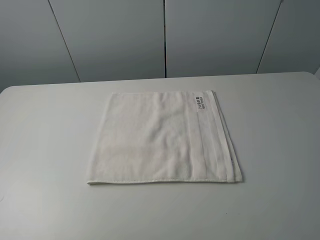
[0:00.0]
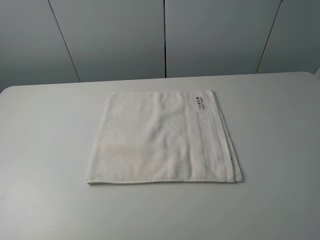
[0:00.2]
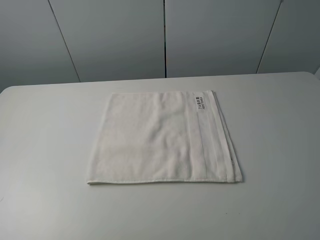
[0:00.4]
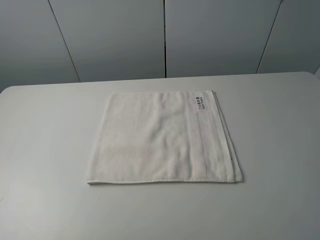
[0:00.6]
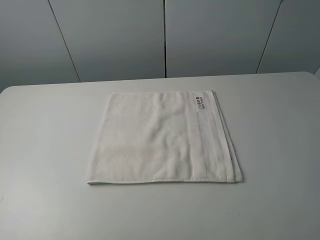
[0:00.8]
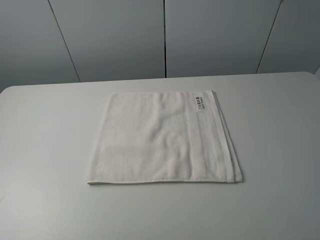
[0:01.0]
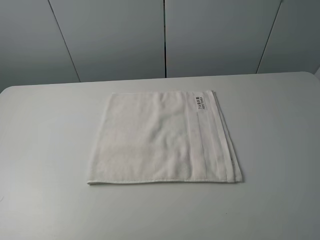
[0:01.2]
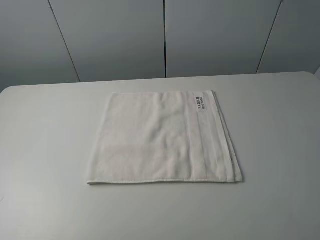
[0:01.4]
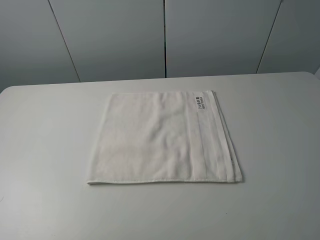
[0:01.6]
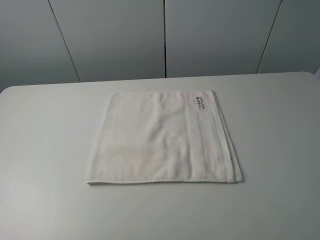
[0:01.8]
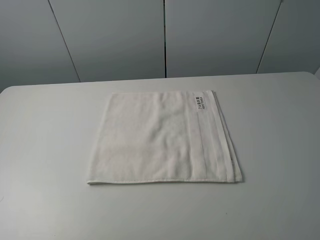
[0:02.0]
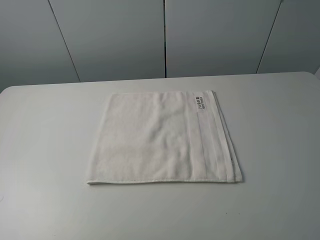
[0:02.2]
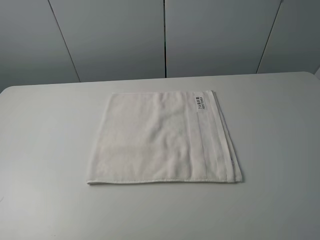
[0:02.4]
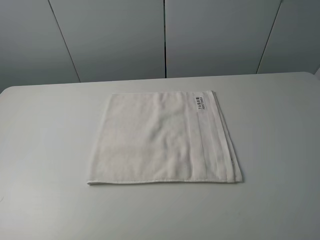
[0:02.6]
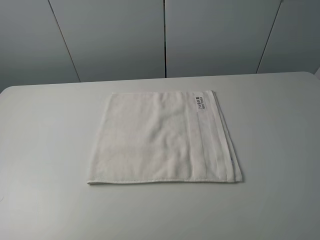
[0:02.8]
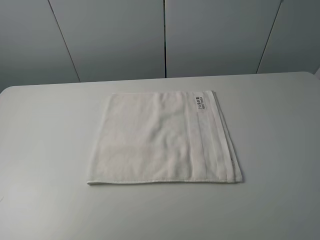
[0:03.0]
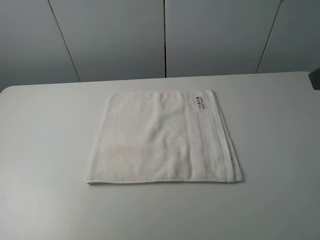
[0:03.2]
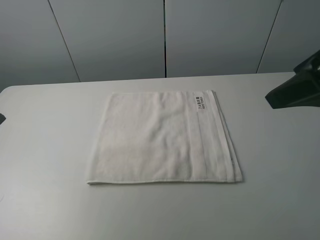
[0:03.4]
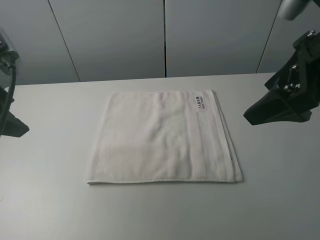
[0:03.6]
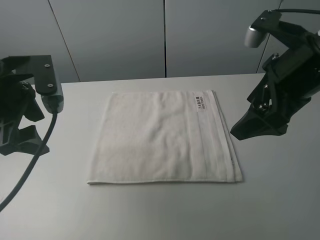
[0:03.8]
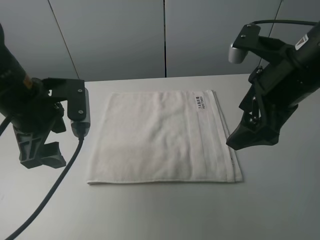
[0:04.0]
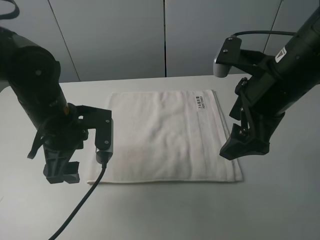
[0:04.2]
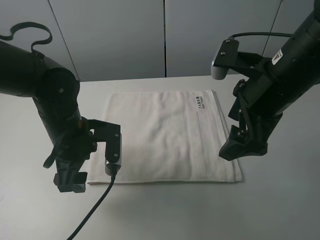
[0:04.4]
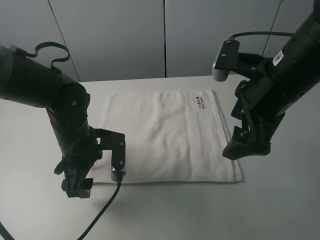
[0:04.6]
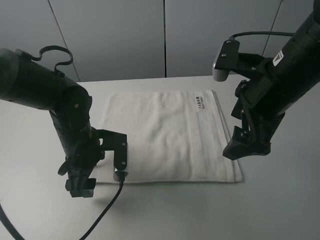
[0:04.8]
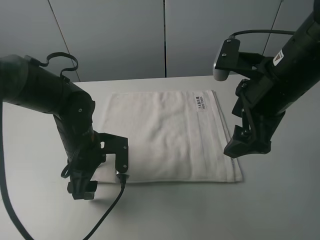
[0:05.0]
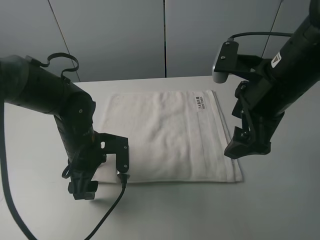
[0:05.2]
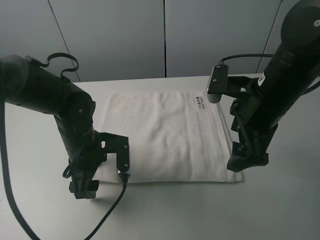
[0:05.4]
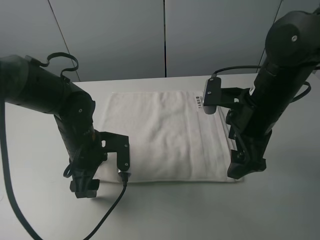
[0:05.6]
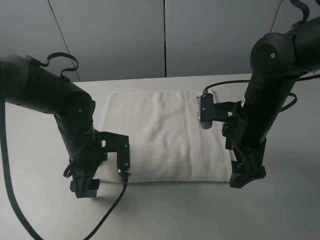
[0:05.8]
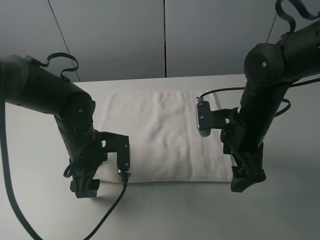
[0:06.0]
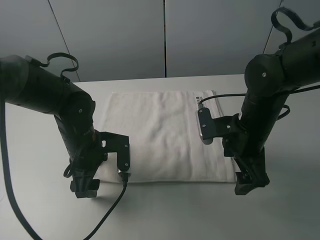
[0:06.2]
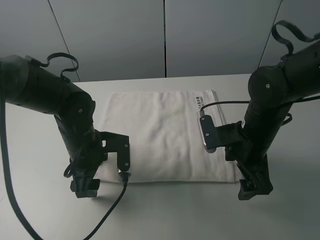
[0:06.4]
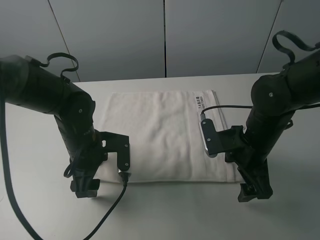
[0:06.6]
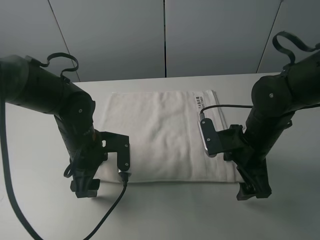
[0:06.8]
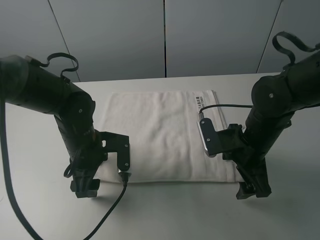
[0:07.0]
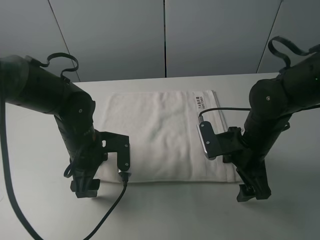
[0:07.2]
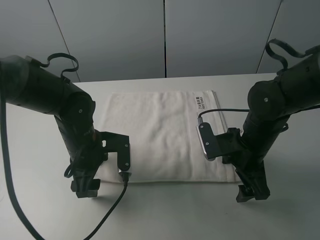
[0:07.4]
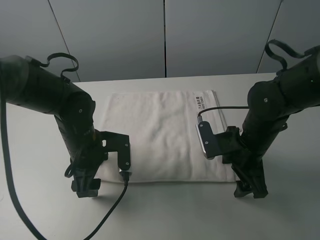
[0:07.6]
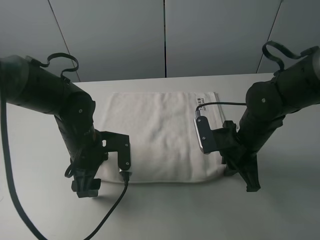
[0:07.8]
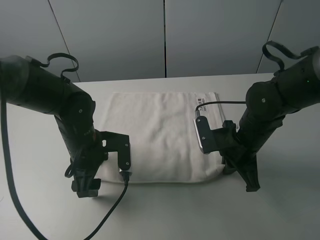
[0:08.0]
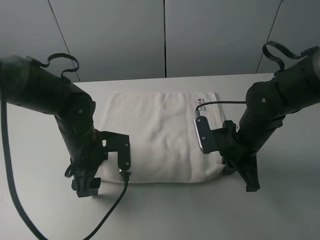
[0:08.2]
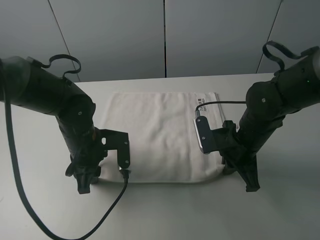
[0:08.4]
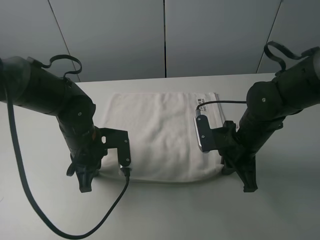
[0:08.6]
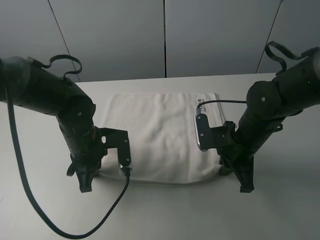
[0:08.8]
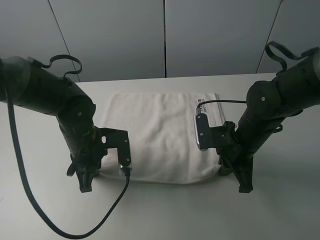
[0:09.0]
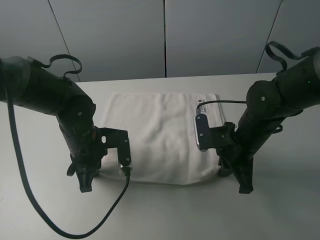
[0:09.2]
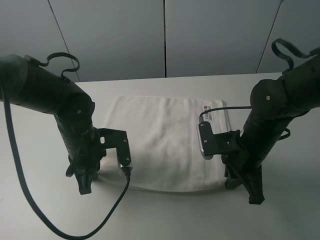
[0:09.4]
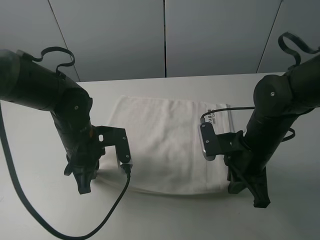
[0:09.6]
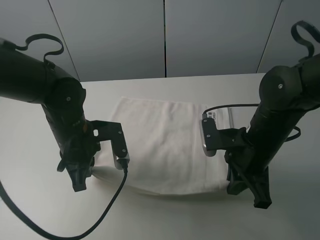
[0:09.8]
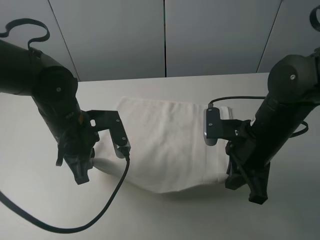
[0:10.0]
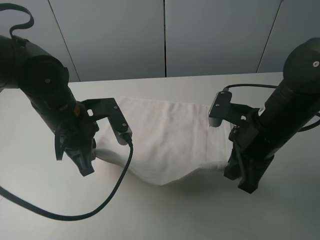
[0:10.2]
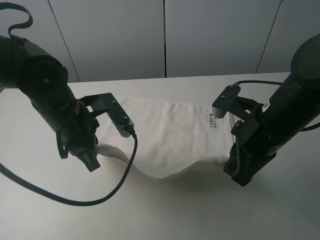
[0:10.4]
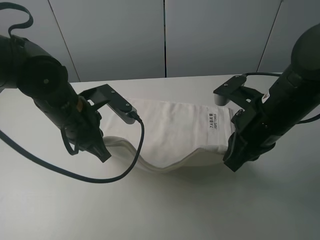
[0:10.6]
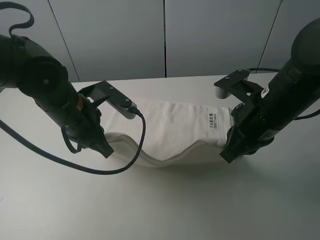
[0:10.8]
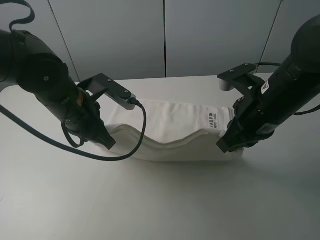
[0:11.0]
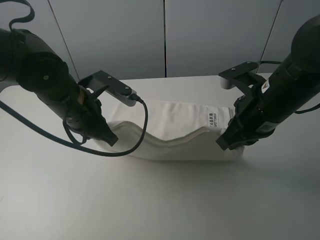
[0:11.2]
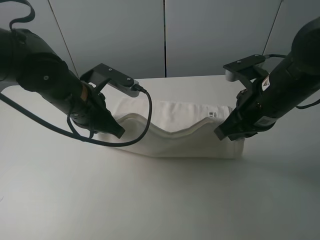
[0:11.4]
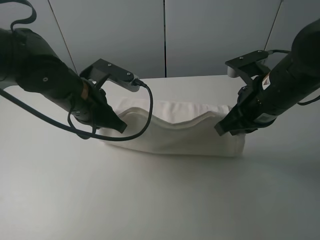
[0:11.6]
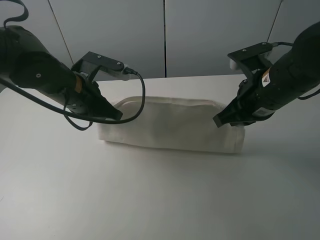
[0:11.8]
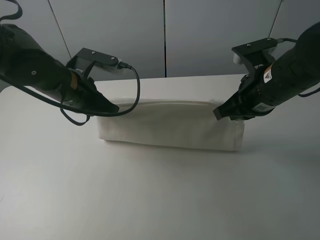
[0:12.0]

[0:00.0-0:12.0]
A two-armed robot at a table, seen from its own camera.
Task of the whole recording: fold the towels on the table.
Step, 0:00.0 to 0:07.8: Grasp the white towel with the right gripper.
Step, 0:08.0 to 0:08.4: Grasp the white towel with the left gripper.
0:00.0 to 0:01.6: Both grippers stay put.
0:03.0 to 0:04.4: The right gripper goes about 20 cm to the left, downward and forward, while the left gripper shifts some 30 cm downward, to the right and forward.
0:04.4 to 0:06.0: The right gripper travels downward by about 10 cm.
0:06.0 to 0:07.6: The right gripper ends up about 5 cm from where it was.
0:07.6 to 0:09.0: The right gripper closes its fingers. Meanwhile the left gripper closes up.
0:09.0 to 0:10.4: Both grippers travel together upward, some 10 cm.
0:10.4 to 0:12.0: The two grippers go roughly 5 cm forward.

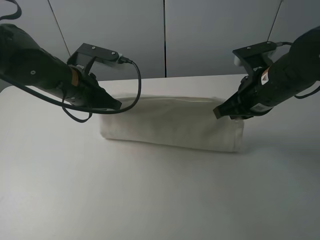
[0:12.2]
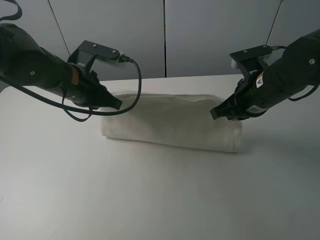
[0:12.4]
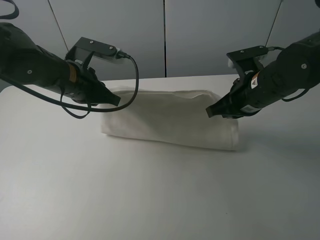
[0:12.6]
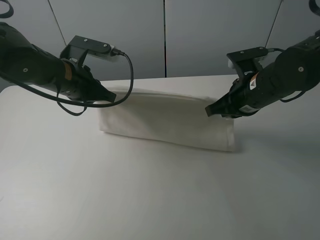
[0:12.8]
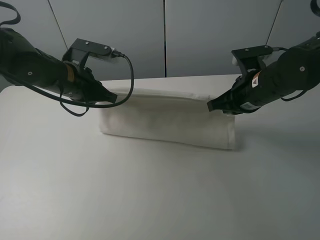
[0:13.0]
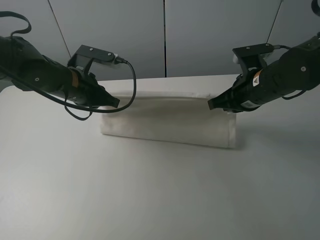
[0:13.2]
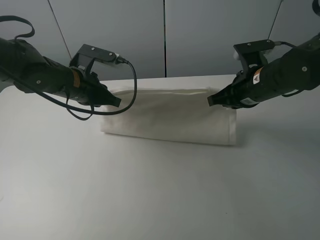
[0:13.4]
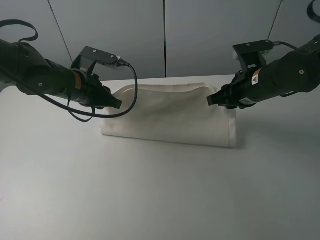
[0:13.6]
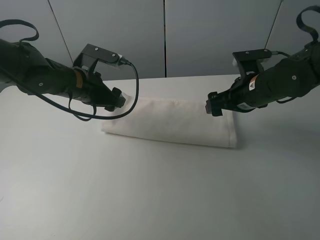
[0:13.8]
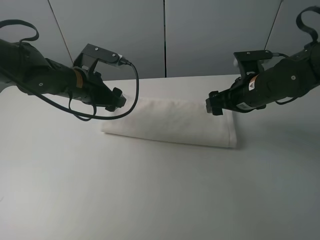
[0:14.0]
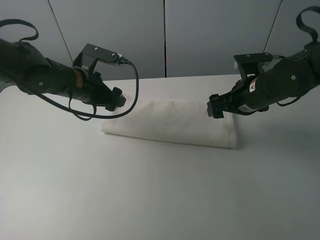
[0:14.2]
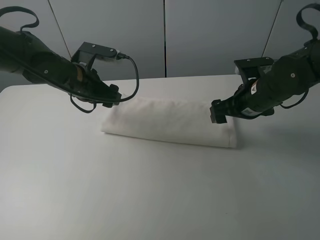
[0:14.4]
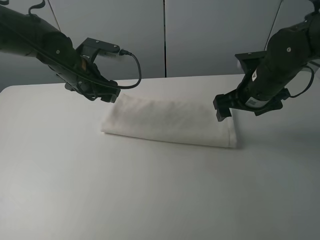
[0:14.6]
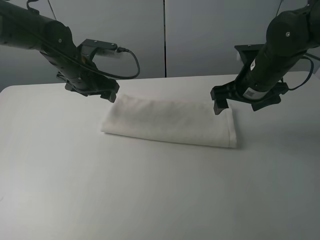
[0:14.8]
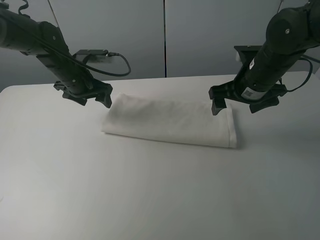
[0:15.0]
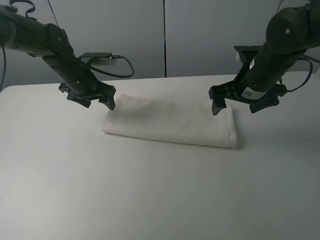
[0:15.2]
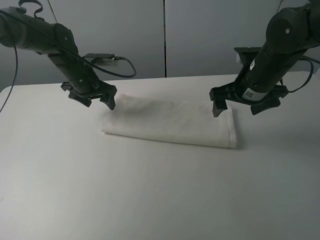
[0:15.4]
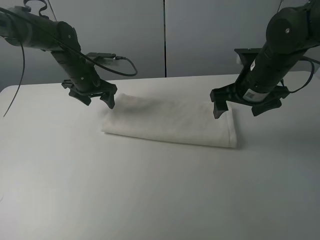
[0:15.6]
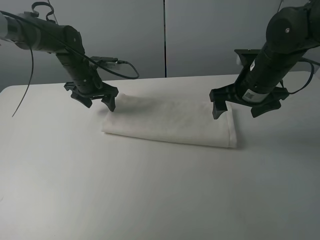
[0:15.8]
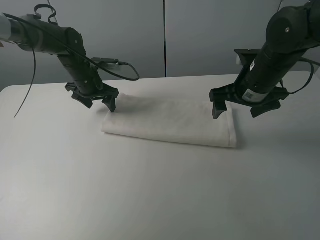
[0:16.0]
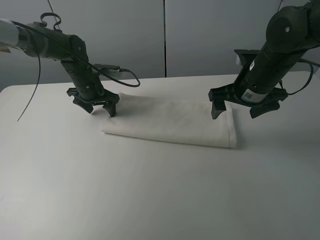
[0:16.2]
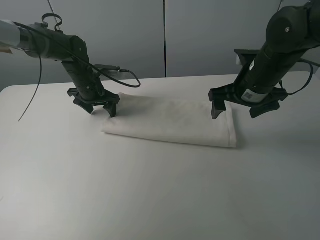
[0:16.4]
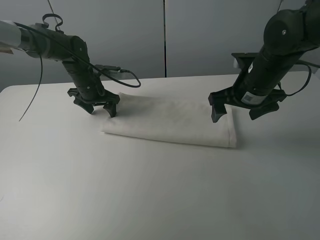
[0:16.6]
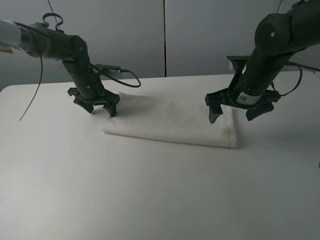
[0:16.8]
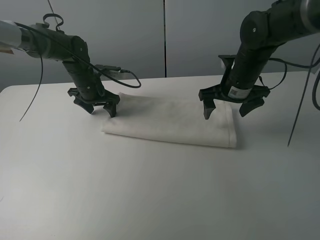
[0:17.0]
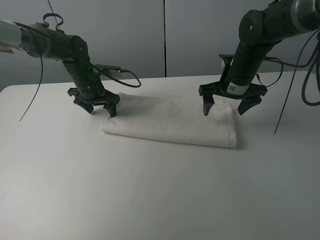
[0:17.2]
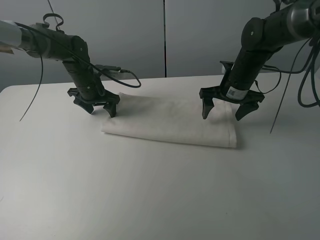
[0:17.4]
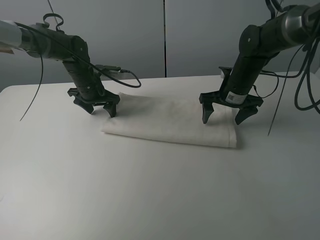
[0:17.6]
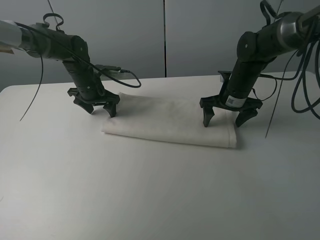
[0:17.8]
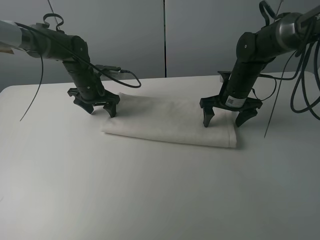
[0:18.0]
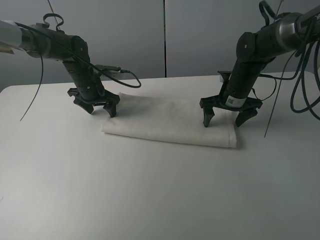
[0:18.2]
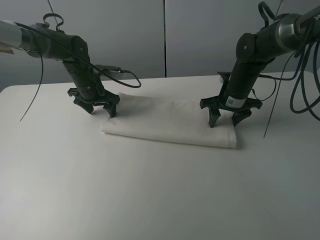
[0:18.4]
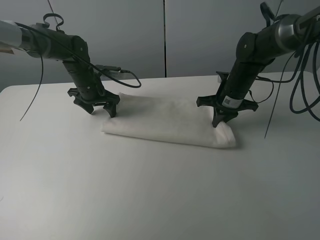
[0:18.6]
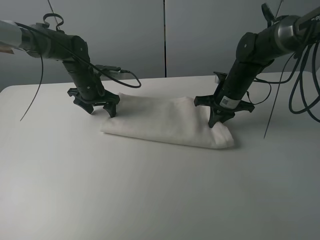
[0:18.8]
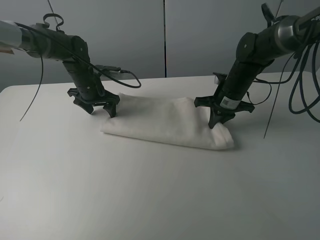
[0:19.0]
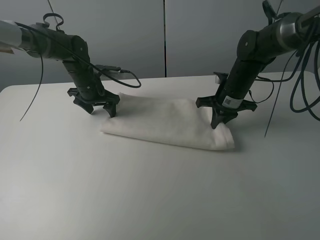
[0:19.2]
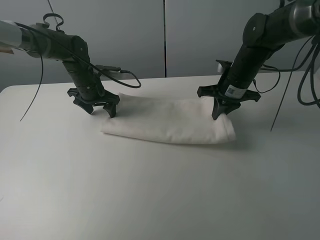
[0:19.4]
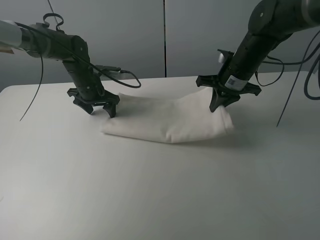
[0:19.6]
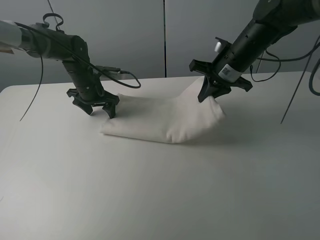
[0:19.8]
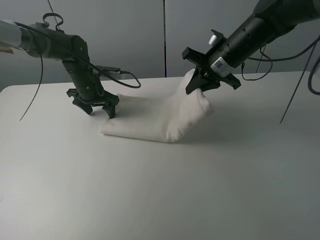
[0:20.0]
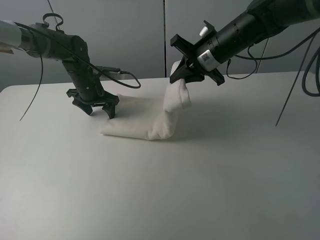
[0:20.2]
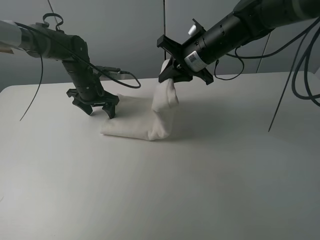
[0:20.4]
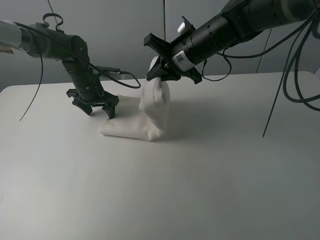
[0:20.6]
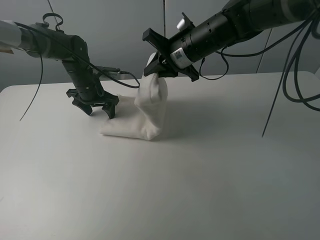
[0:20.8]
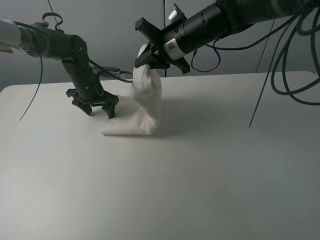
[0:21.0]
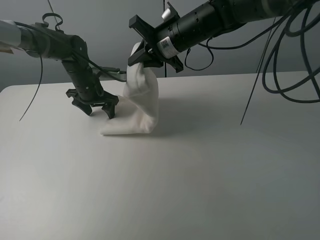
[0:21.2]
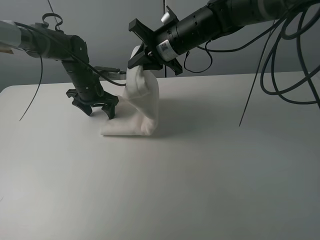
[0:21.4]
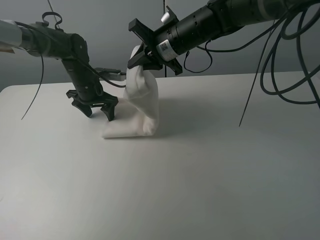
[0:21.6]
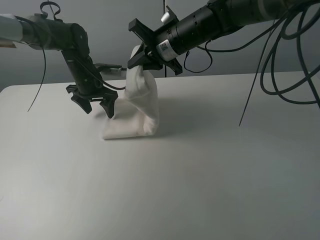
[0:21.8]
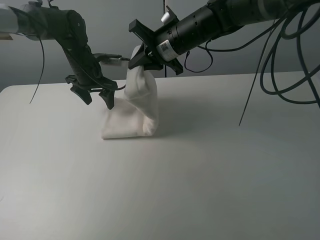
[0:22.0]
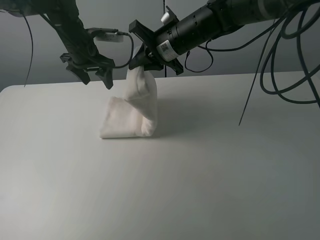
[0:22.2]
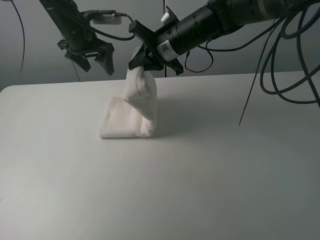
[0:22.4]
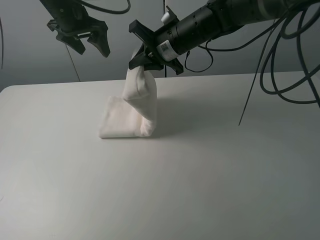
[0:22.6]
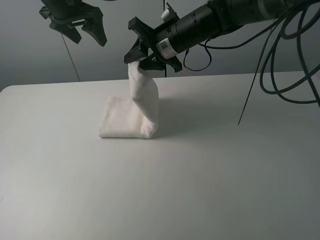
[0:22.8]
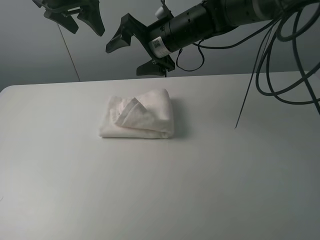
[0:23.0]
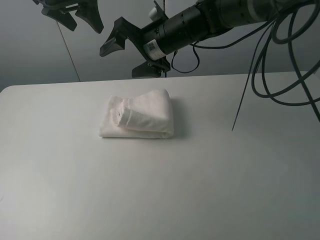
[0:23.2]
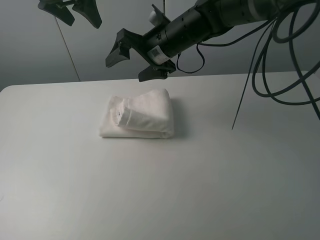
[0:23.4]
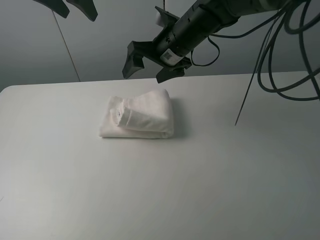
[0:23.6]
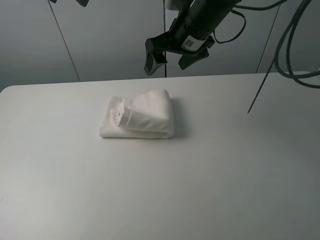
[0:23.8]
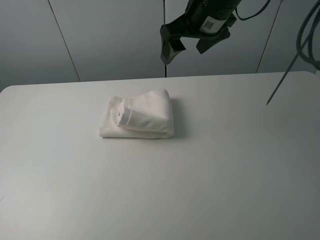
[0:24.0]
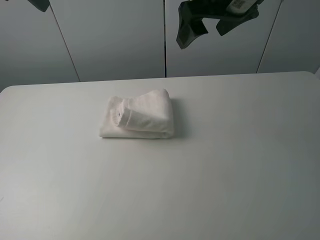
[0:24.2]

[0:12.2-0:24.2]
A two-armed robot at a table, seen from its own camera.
Task of the whole recording: fold the towels on the table.
Step, 0:14.2 to 0:16.4: Press on the white towel with the left gripper.
Step, 0:16.6 to 0:23.2: Fold the white towel from right to left with right gripper.
0:12.2 to 0:13.8: The right gripper shifts by roughly 5 cm, and opens its fingers. The left gripper opens up.
0:13.8 to 0:15.2: The left gripper shifts approximately 10 cm forward.
0:15.2 to 0:16.6: The left gripper changes place by about 5 cm.
0:16.6 to 0:18.2: The right gripper moves forward and downward, roughly 10 cm.
0:18.2 to 0:19.8: The right gripper goes roughly 10 cm upward, and closes.
0:19.8 to 0:21.2: The right gripper heads to the left, covering roughly 10 cm.
0:21.2 to 0:22.6: The left gripper is displaced upward by about 20 cm.
0:22.6 to 0:24.2: The left gripper moves backward and upward, about 20 cm. Meanwhile the right gripper travels upward, backward and to the right by approximately 15 cm, and opens.
